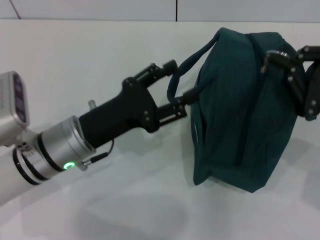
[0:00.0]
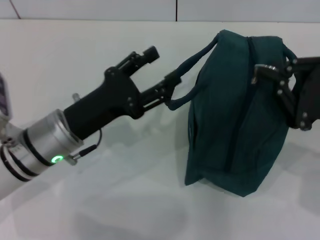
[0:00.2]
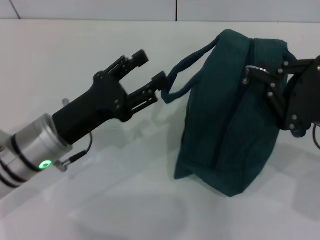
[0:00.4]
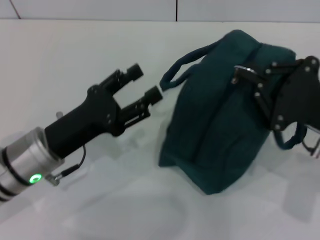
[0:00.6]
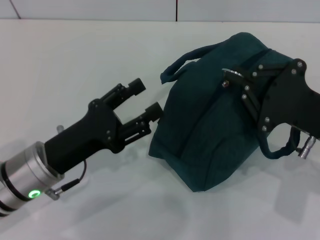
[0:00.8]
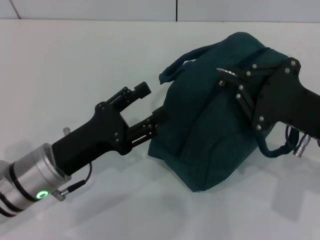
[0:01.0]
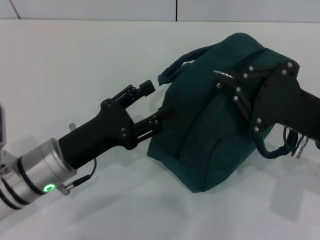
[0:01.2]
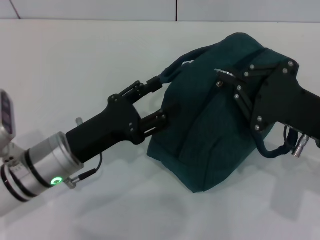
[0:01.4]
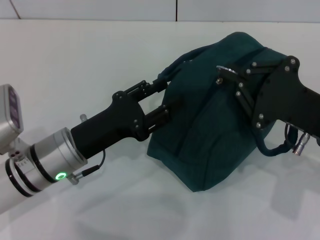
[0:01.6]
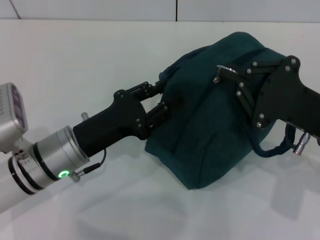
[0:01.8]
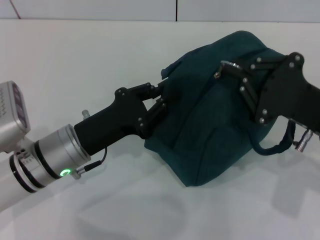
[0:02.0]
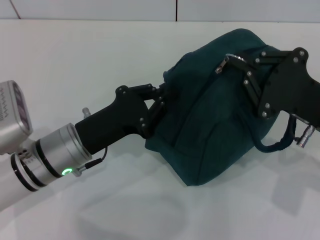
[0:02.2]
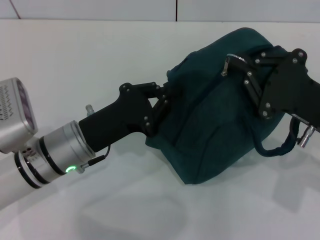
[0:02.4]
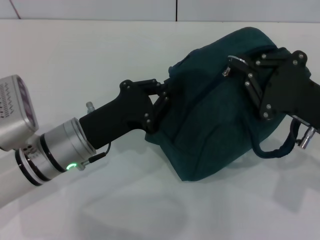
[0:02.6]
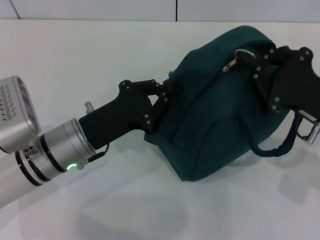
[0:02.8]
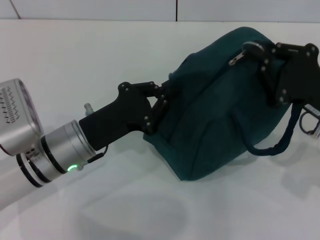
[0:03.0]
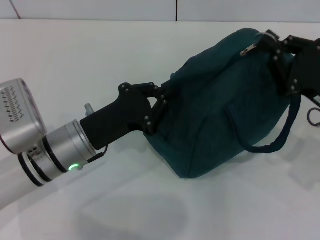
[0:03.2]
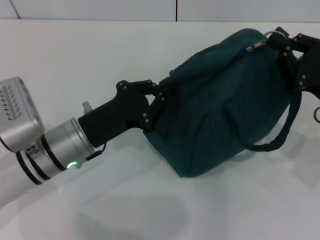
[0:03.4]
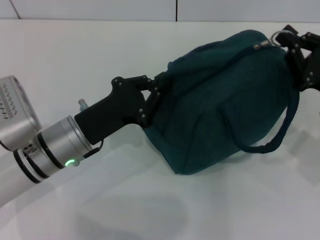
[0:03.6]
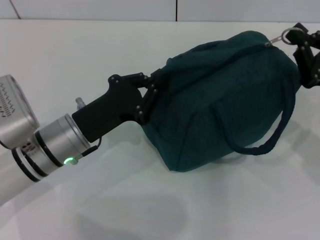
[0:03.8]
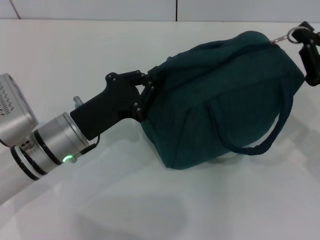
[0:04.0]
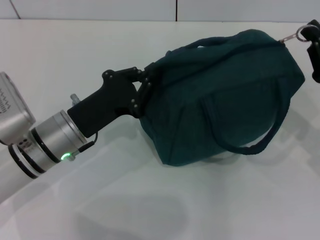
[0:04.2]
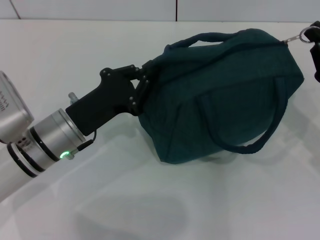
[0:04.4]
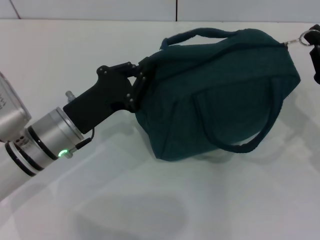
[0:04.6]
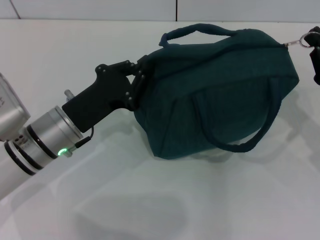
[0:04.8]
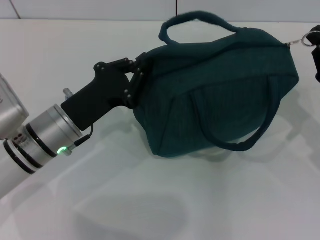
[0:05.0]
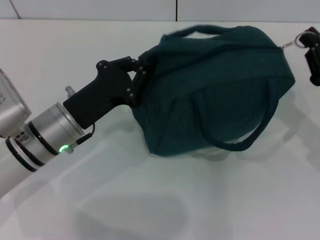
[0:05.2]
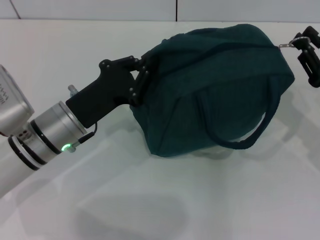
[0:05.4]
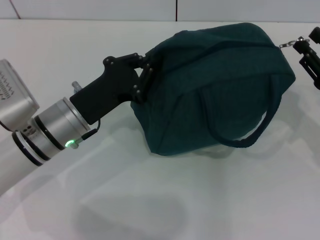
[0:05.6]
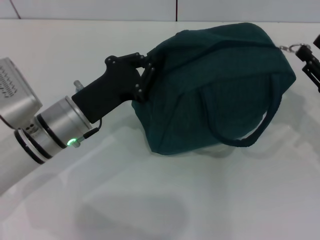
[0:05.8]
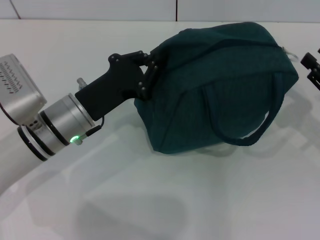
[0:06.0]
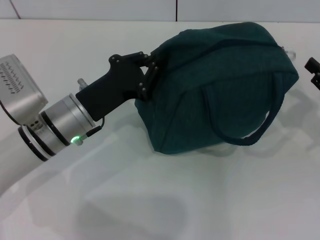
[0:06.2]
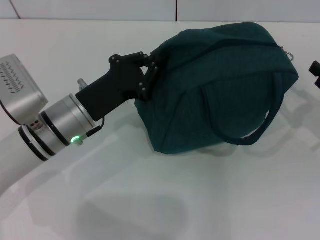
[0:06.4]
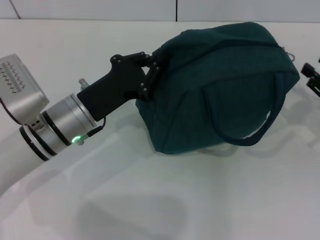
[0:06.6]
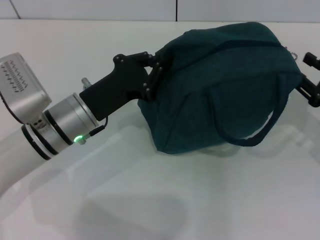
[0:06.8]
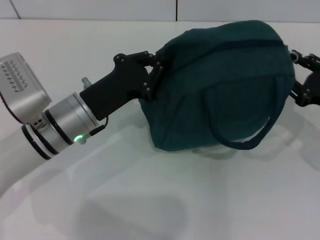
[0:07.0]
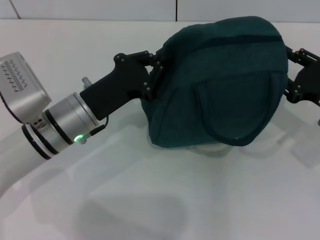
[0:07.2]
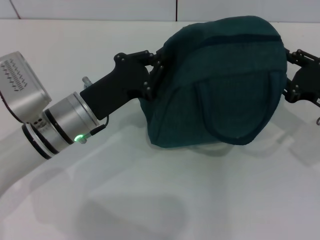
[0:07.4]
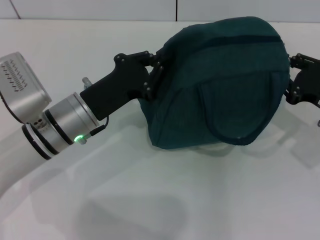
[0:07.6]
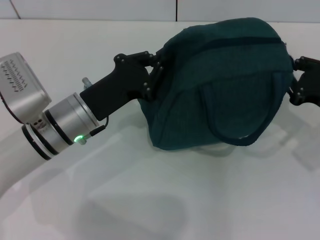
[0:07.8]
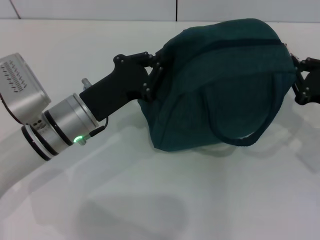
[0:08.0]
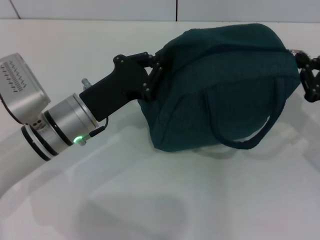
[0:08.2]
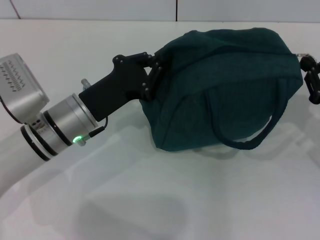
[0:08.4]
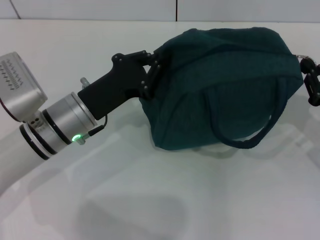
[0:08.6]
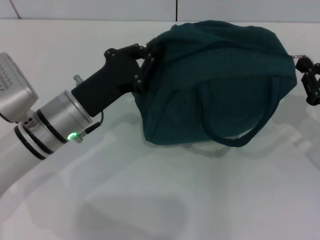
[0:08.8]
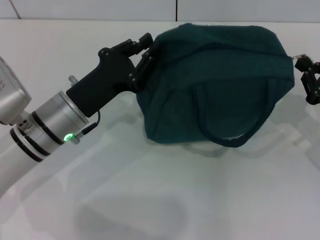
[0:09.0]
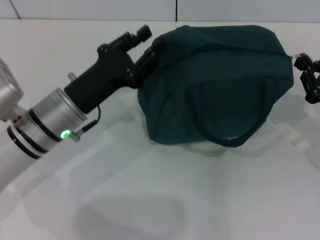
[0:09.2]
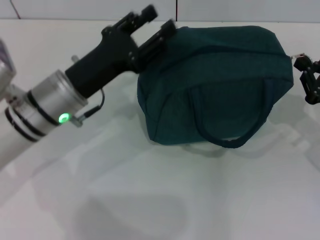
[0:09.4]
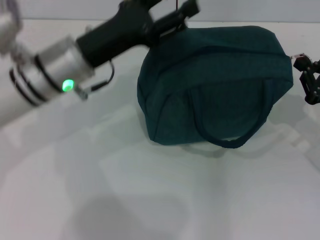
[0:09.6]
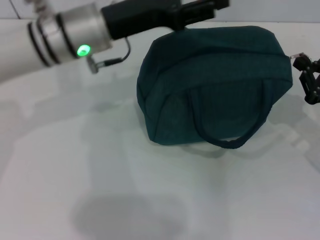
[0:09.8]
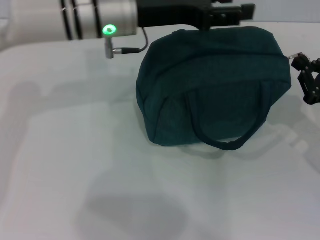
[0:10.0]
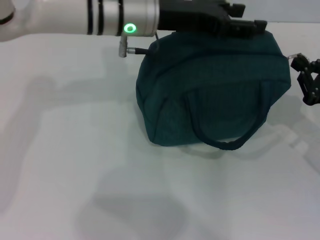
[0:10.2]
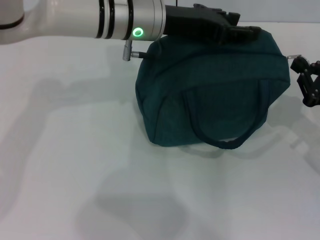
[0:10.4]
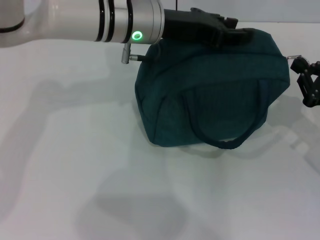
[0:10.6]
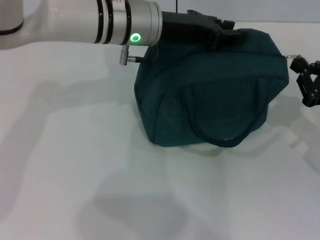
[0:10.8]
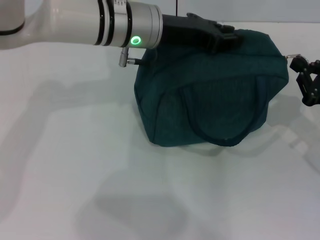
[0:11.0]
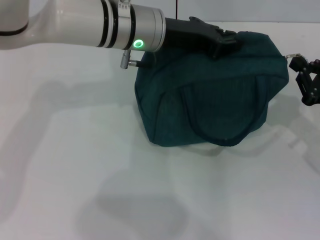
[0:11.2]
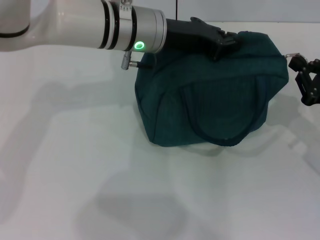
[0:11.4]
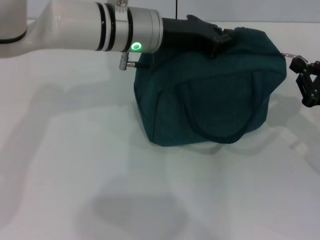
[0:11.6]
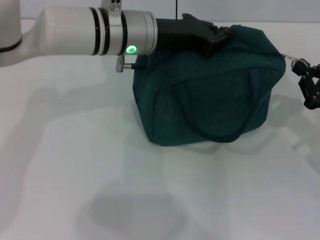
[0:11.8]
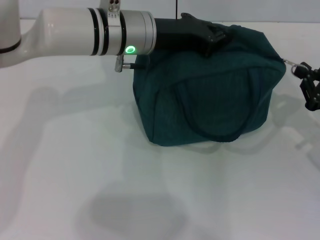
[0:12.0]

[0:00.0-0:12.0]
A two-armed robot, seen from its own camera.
0:00.0 to 0:01.6: The right gripper moves to the left, about 5 cm.
0:01.6 to 0:03.0: The left gripper closes its fingers.
0:03.0 to 0:04.4: The right gripper shifts roughly 5 cm to the right.
0:04.4 to 0:06.0: The right gripper opens its fingers.
0:06.0 to 0:07.6: The grippers stay close to where they were, moving slightly.
0:07.6 to 0:09.0: The right gripper closes its fingers.
0:09.0 to 0:10.4: The left gripper travels forward, upward and to the right by some 20 cm, and opens up.
0:10.4 to 0:12.0: The left gripper closes up.

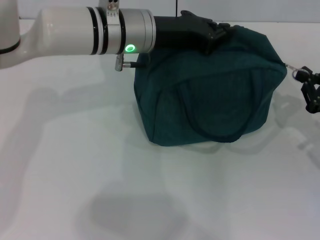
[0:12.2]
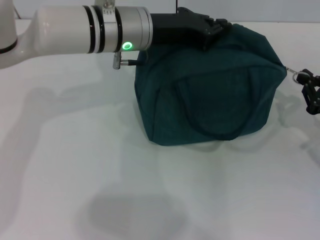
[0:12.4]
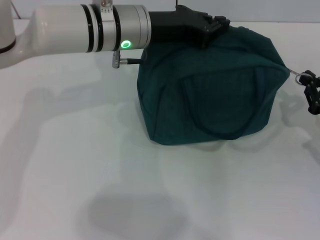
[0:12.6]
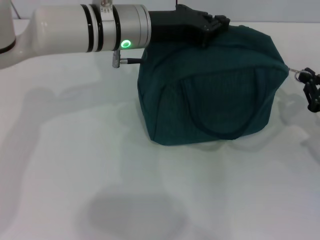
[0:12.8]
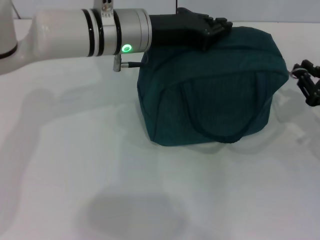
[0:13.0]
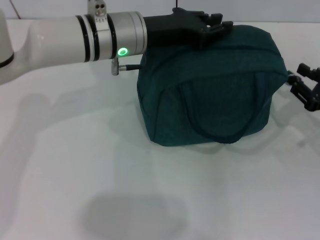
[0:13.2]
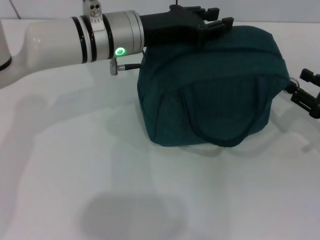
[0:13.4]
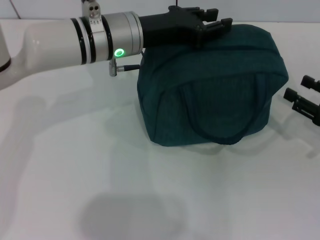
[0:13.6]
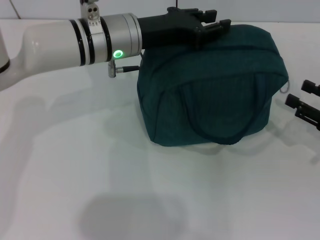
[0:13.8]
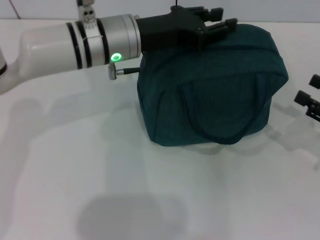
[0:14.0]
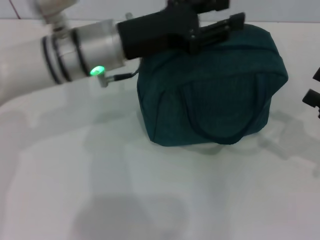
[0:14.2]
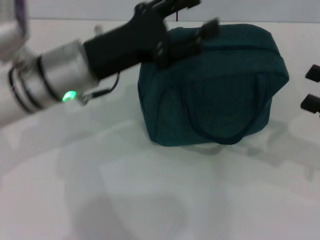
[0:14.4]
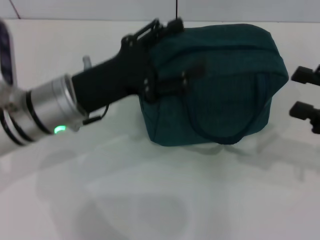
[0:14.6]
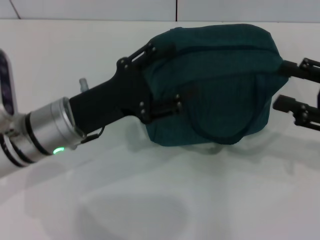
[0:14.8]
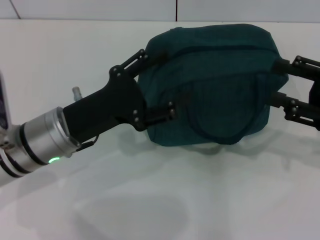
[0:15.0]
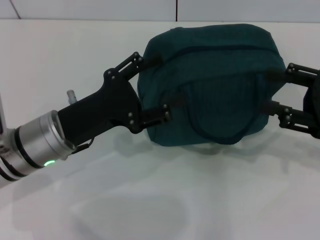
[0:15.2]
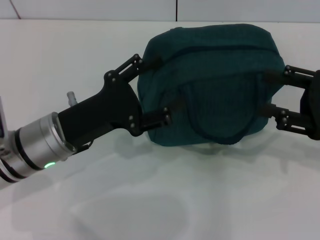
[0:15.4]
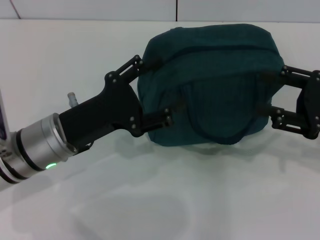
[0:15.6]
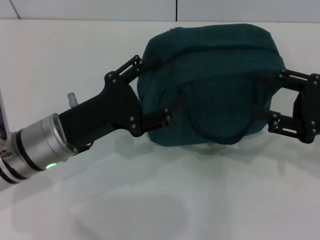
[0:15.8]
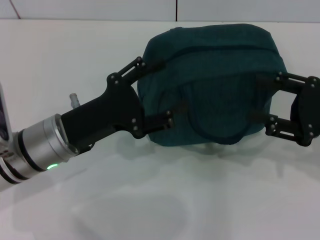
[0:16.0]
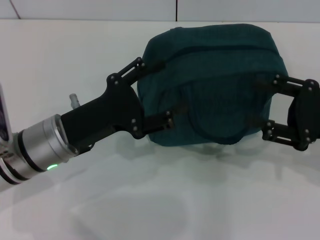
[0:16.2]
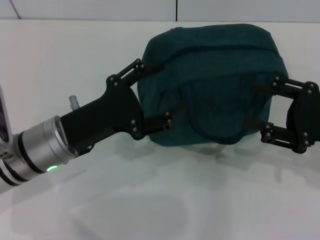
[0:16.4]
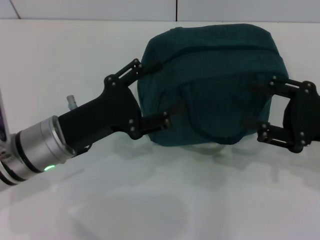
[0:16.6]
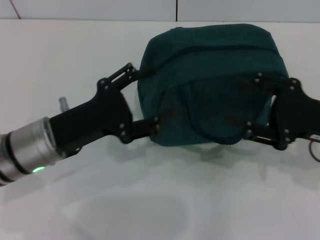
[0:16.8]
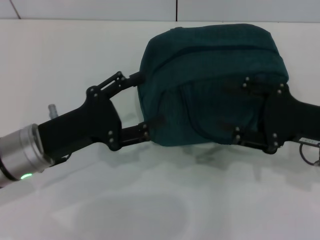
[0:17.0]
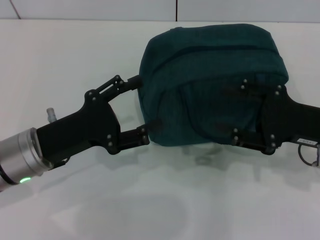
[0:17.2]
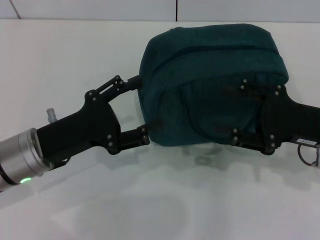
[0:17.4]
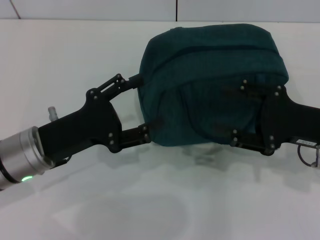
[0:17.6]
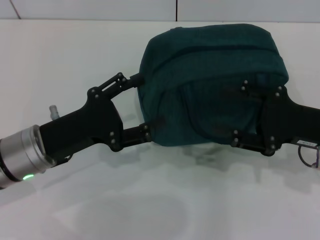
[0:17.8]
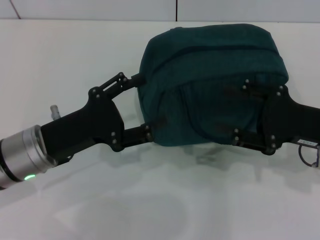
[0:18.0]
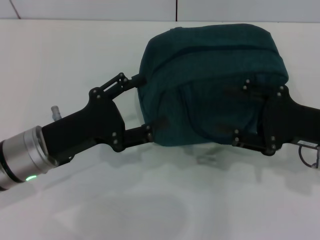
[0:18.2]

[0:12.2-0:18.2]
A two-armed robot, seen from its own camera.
0:12.2 to 0:13.8: The left gripper opens up; the right gripper opens its fingers.
0:13.8 to 0:15.2: The right gripper heads upward, covering some 5 cm; the left gripper heads backward, to the left and downward, covering about 15 cm, and opens its fingers.
0:15.2 to 0:18.2: The grippers stay close to where they were, moving slightly.

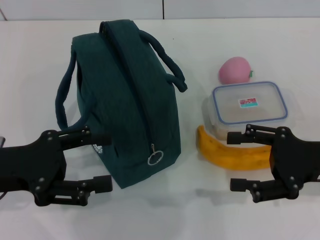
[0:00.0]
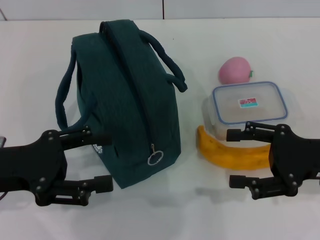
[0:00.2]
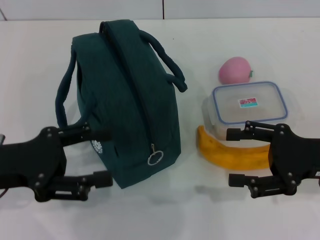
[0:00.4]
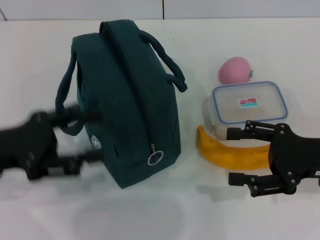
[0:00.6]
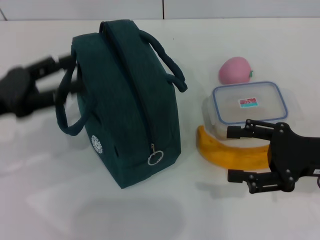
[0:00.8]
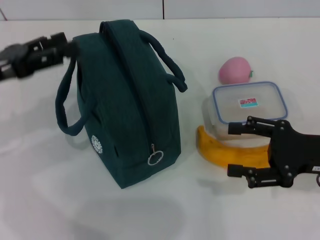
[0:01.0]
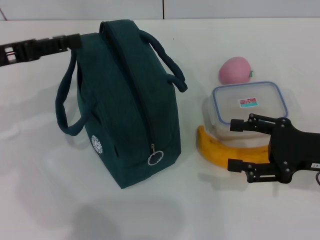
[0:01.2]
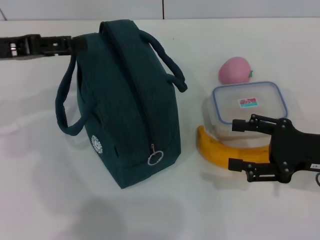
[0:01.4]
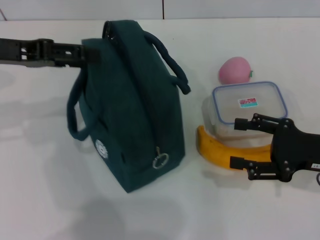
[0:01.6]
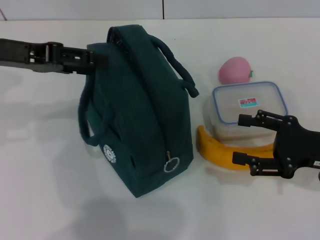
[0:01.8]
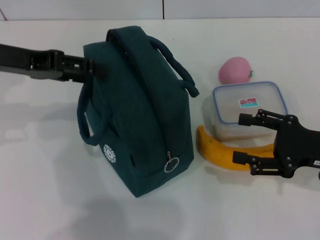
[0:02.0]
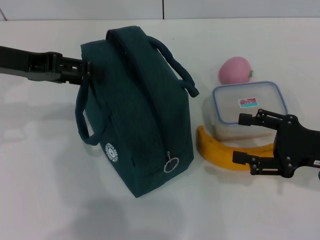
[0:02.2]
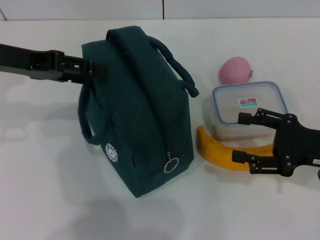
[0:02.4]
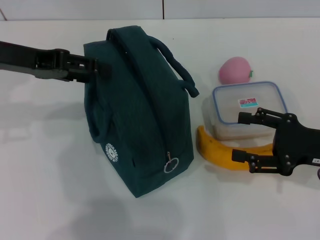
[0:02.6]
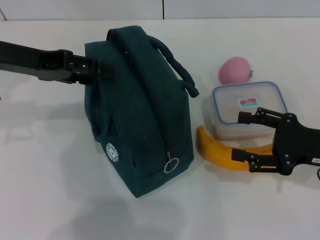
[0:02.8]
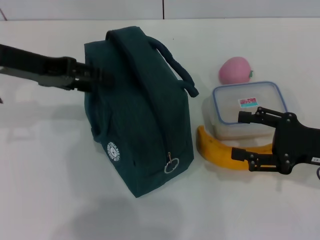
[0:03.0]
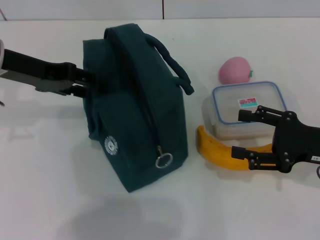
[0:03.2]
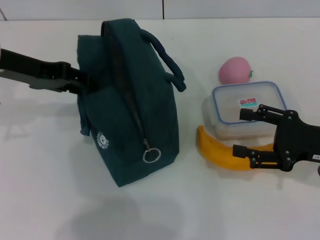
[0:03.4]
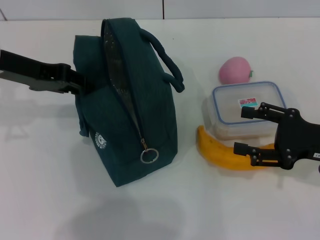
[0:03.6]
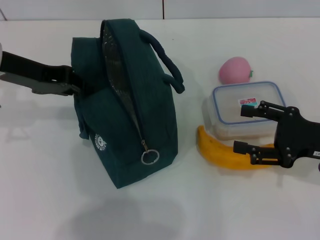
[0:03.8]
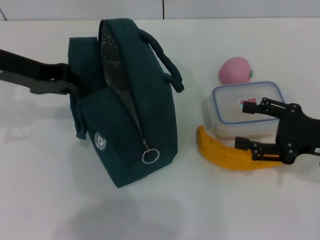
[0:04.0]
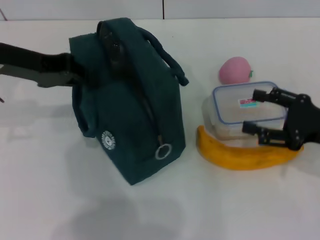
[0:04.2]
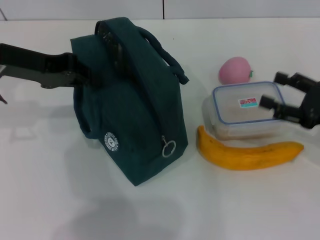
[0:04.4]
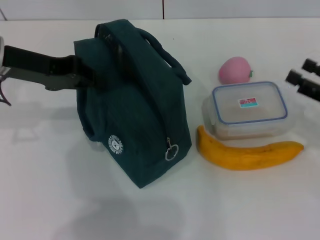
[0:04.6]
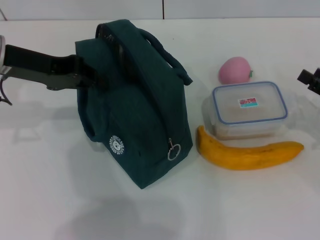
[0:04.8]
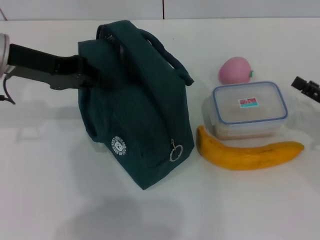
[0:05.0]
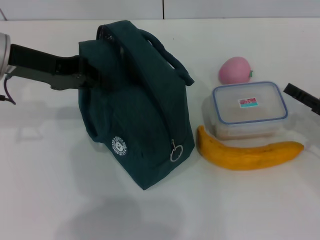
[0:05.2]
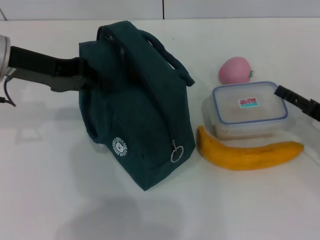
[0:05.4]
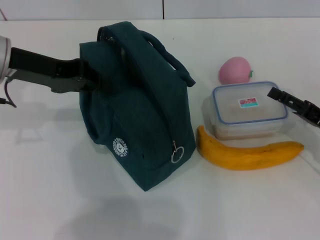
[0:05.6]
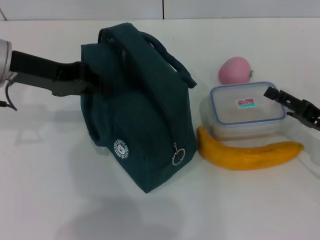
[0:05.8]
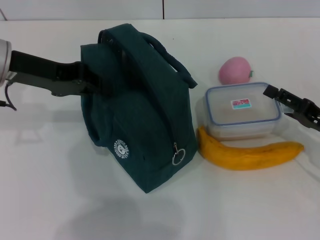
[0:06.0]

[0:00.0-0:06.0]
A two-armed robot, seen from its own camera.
Step, 0:00.0 to 0:04.0: Hold the lunch bag with your left hand.
0:00.0 to 0:01.6: The left gripper is displaced forward and upward by some 15 cm.
0:01.6 to 0:03.0: The grippers stay close to where they were, moving slightly.
0:03.0 to 0:04.4: The left gripper closes up.
